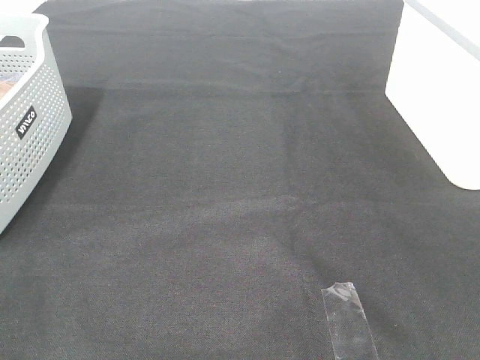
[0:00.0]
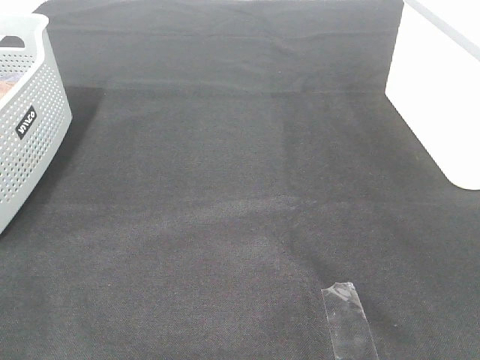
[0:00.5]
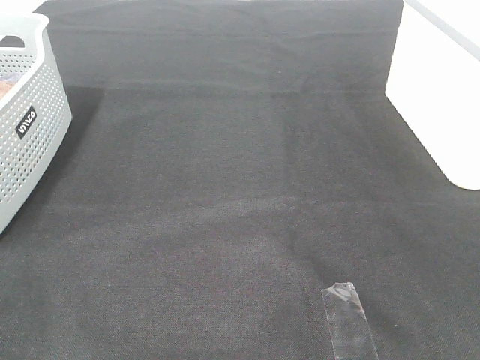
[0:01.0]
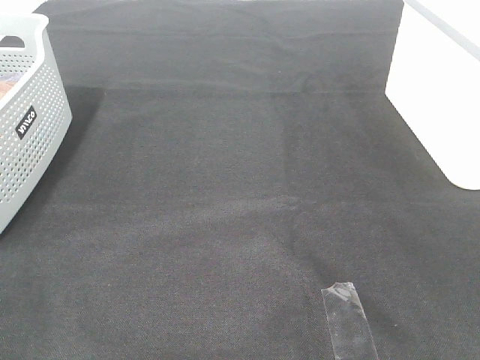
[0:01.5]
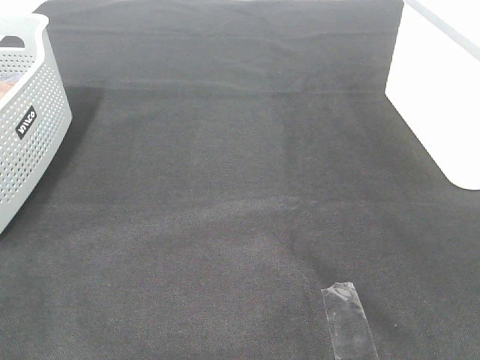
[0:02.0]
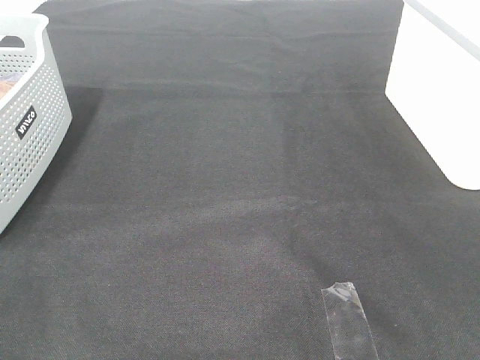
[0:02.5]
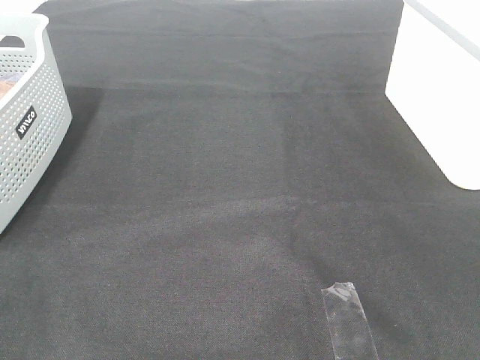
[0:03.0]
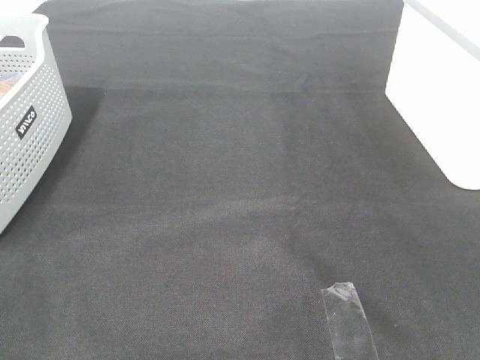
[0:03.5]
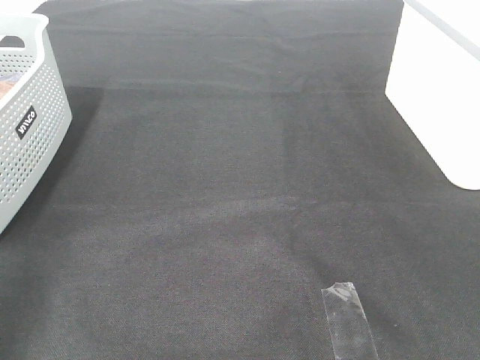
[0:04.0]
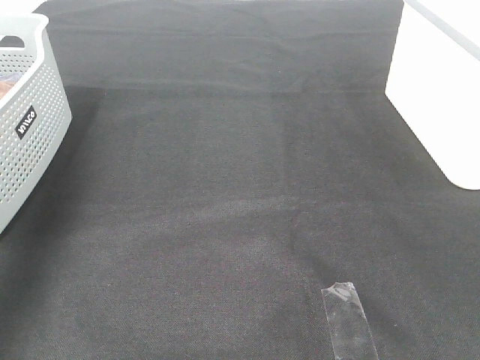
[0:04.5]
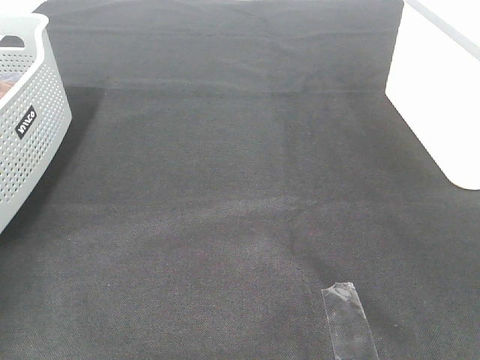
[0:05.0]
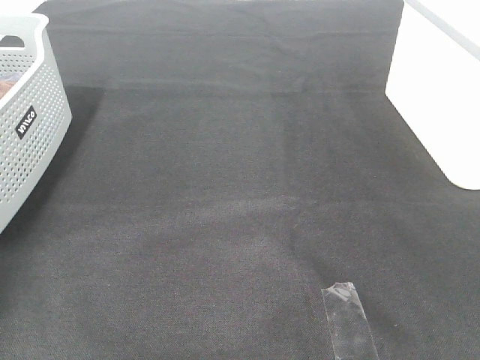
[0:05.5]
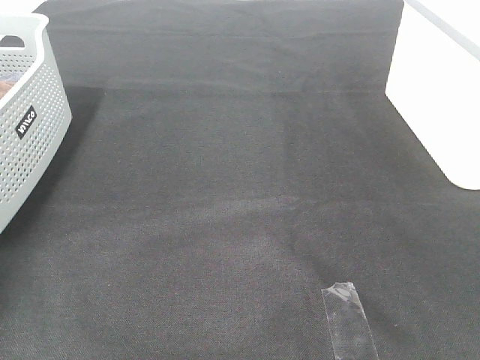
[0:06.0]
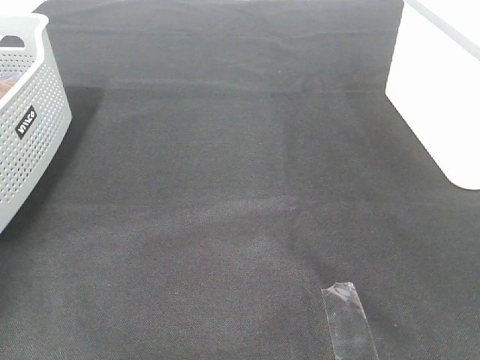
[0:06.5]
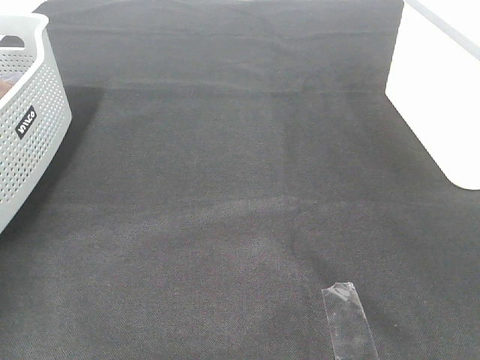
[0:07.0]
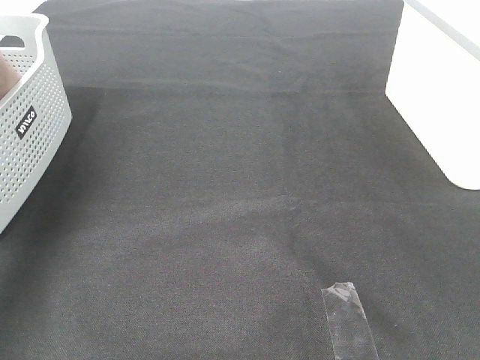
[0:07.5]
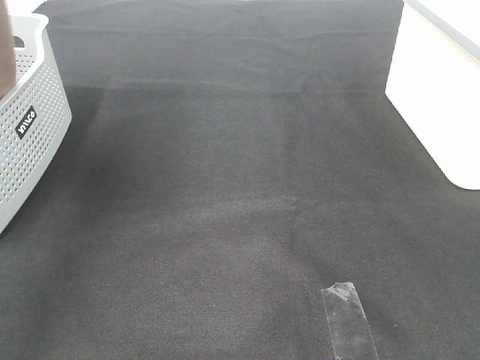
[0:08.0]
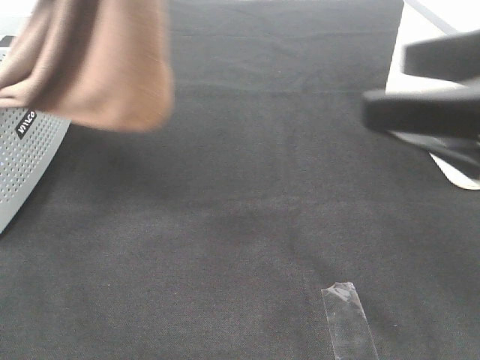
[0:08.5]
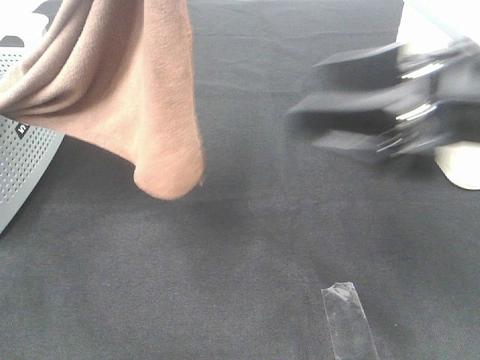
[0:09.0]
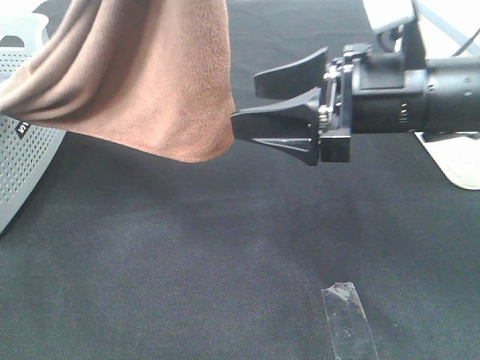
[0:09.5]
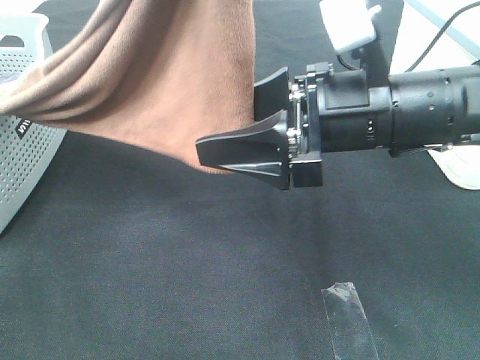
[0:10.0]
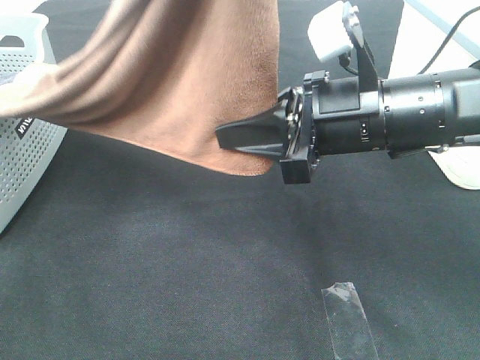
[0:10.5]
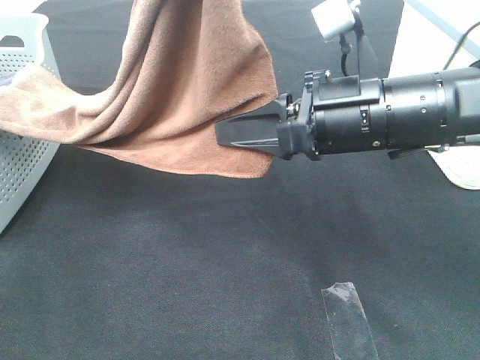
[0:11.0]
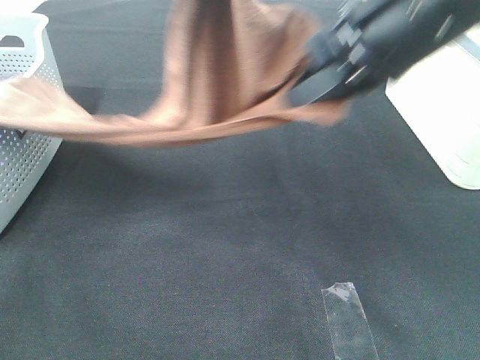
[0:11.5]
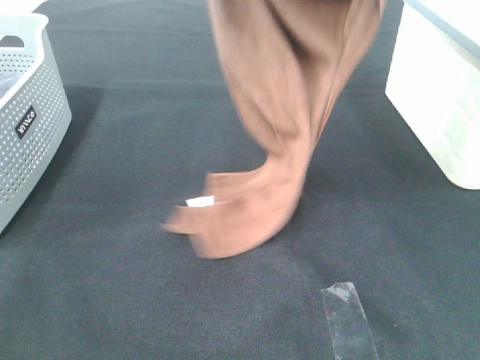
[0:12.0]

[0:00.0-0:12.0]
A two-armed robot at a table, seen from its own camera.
Task of the whole recording: Remove the towel and place it.
Step, 7.5 to 11.0 s: Right hand: grab a corner of the brown towel and straighten it.
0.0 to 2.0 s: Neither gripper changes place.
4.0 to 6.0 s: The left gripper shifts roughly 40 cm forward and downward, and closes up.
6.0 to 8.0 s: The left gripper is displaced upward and to the right by approximately 40 cm.
8.0 to 10.0 s: The right gripper moves forward, to the left and downward, about 25 cm. Meanwhile the left gripper travels to the right by some 15 cm.
10.0 to 12.0 s: The left gripper heads forward, covering some 10 cm. Meanwhile the right gripper goes about 25 cm upward, and closes up.

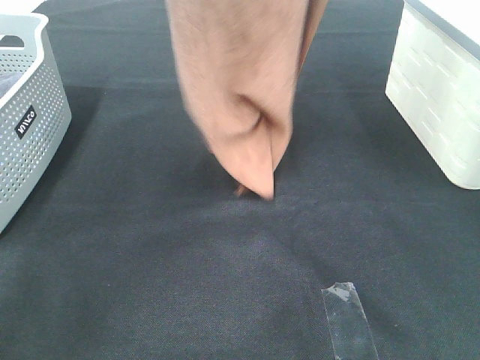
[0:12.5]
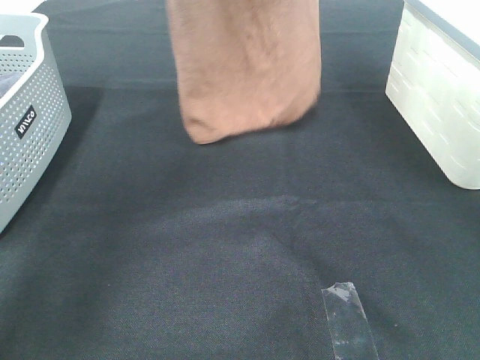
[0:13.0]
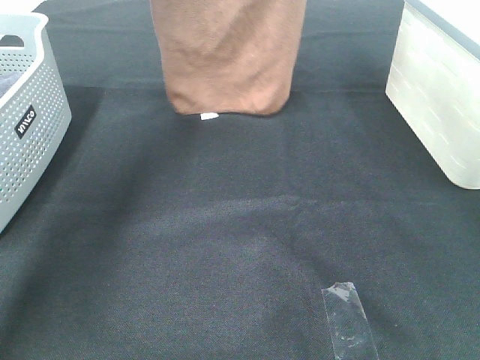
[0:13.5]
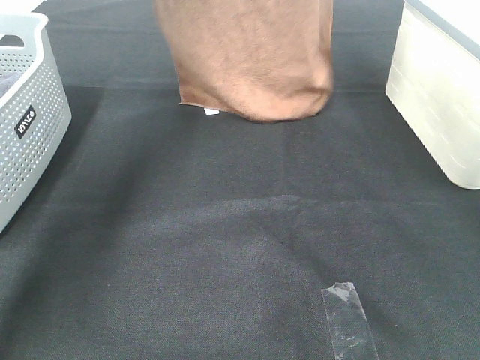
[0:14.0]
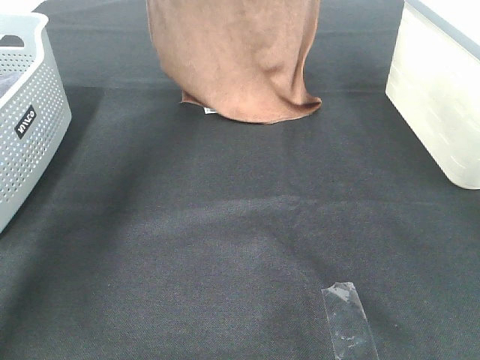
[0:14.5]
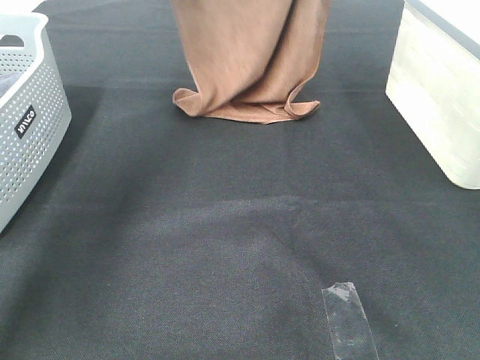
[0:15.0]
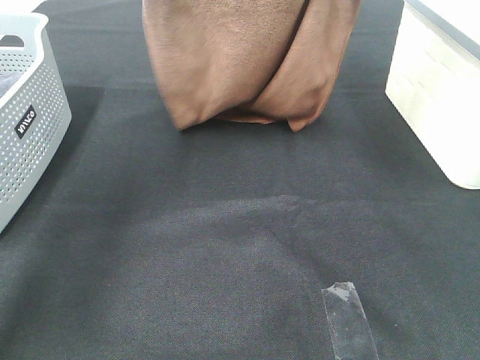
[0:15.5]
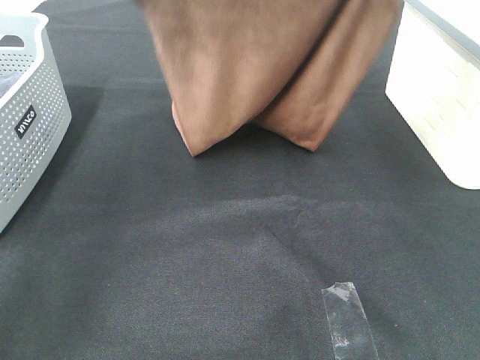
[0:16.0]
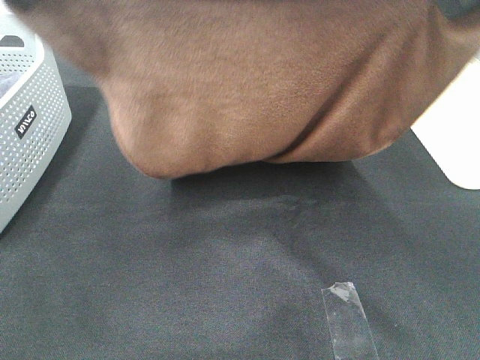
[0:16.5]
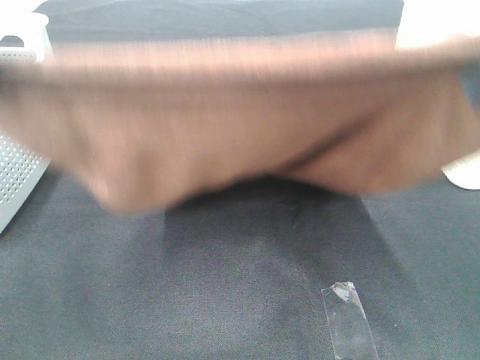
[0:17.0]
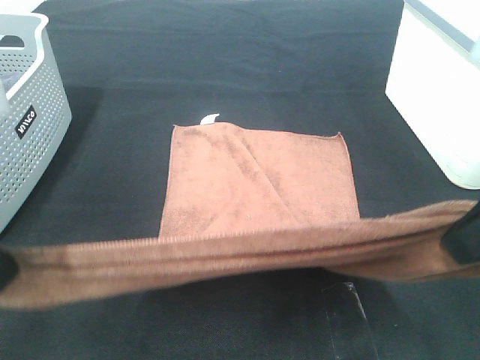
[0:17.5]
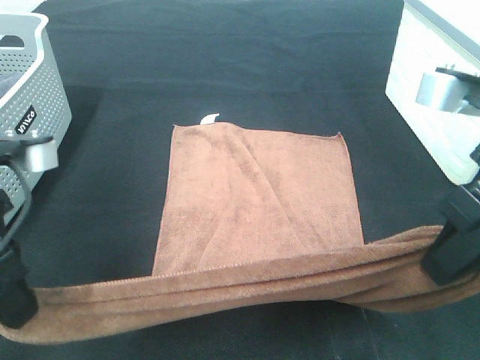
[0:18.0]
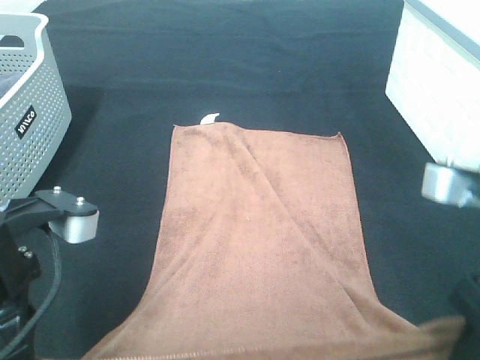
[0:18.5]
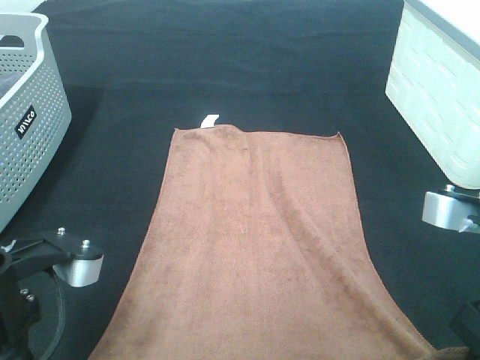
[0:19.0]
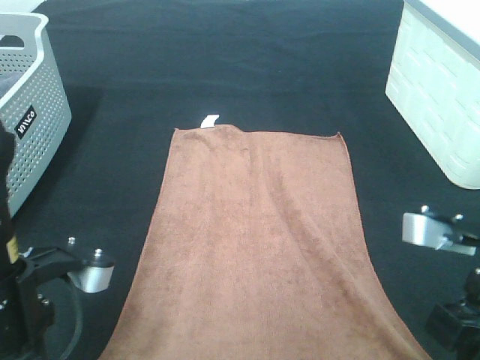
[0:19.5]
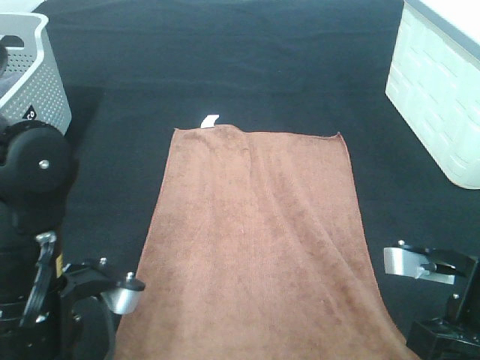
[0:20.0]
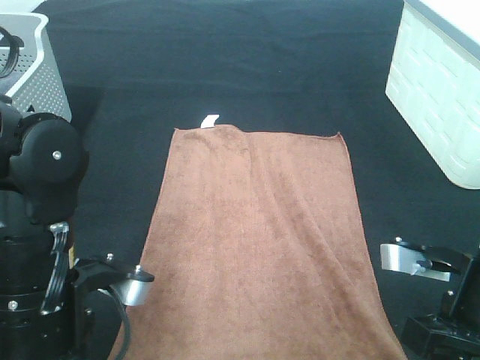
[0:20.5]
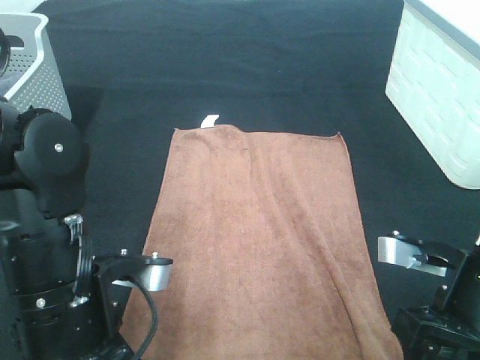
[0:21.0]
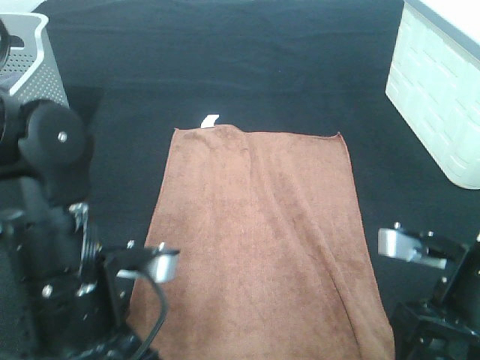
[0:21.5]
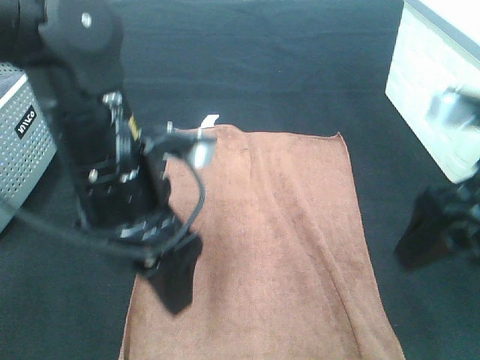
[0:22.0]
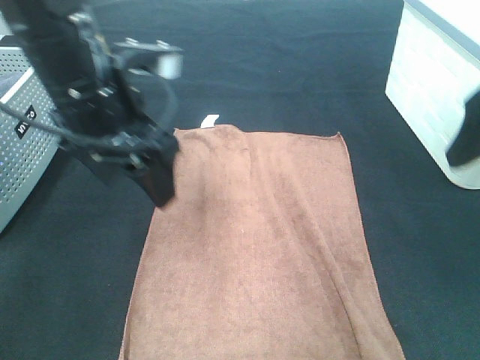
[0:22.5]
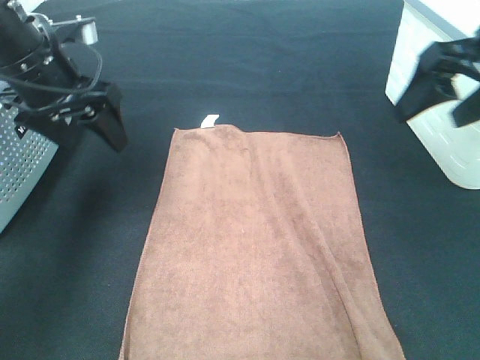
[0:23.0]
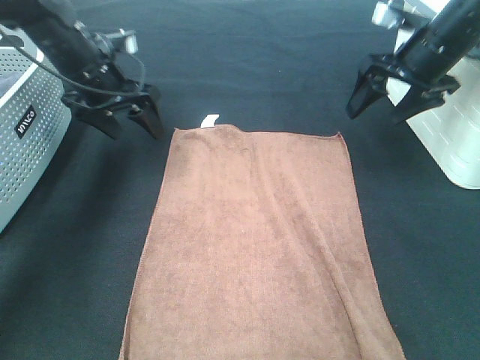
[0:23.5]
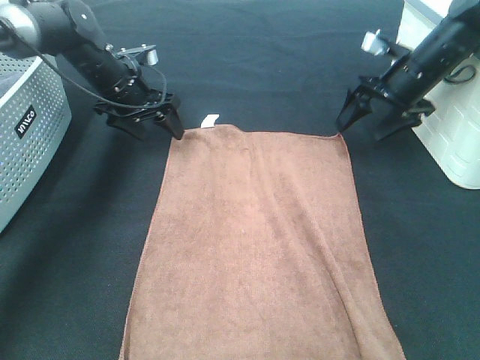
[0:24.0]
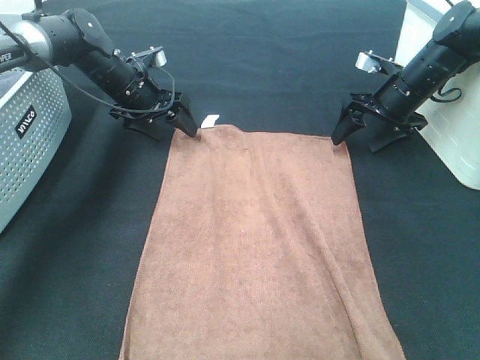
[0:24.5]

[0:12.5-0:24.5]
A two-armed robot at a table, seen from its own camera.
Task of the whole recording: Remove the towel and place it.
Step, 12.5 to 16.5 s: Left hand: spread the brown towel flat on the table.
Step, 12.5 to 16.5 s: Right hand: spread the brown towel flat on the table.
Step, 17.0 to 23.5 s: Left hand:adjust the brown towel.
Step, 17.0 to 23.5 s: Right hand:adjust the brown towel.
12.5 to 14.5 s: Both grippers travel together forward and downward, approximately 15 cm.
14.5 to 16.5 s: Both grippers move backward, roughly 30 cm.
16.5 to 18.5 s: Both grippers move downward, approximately 20 cm.
18.5 to 20.5 s: Both grippers move downward, about 5 cm.
20.5 to 22.5 s: The left gripper heads forward and upward, covering about 15 cm, and opens; the right gripper heads upward and forward, covering about 15 cm, and opens its fingers.
22.5 to 24.5 s: The two grippers go approximately 30 cm forward and downward.

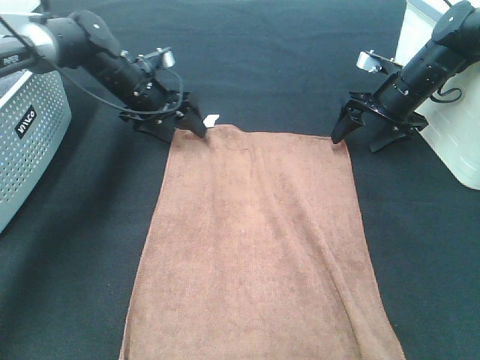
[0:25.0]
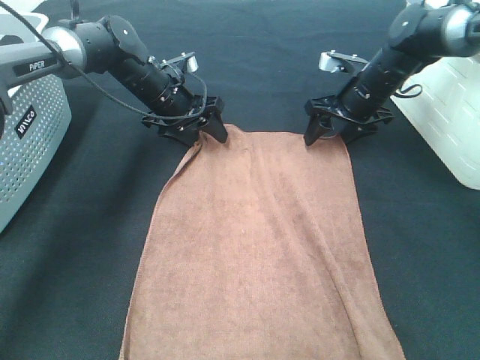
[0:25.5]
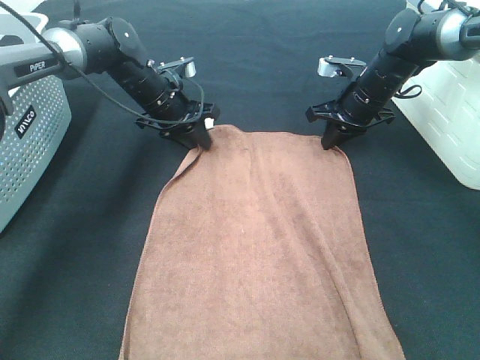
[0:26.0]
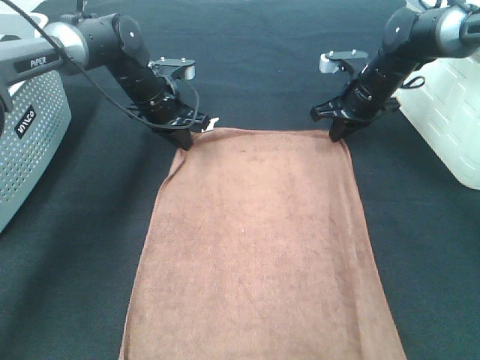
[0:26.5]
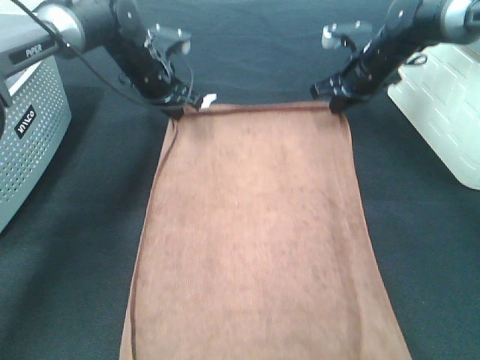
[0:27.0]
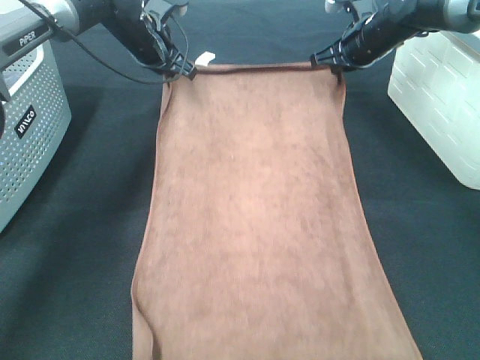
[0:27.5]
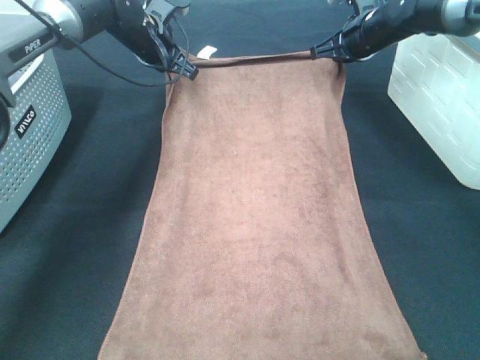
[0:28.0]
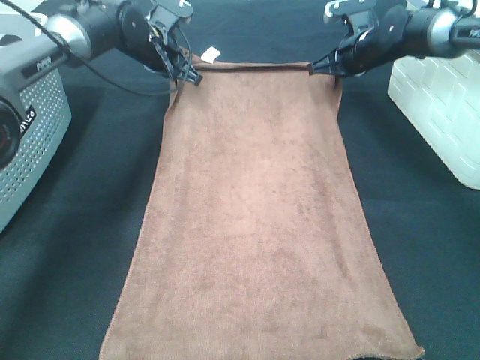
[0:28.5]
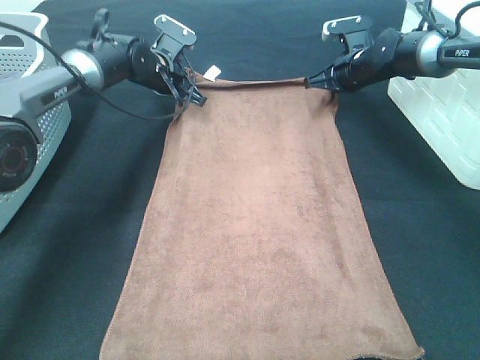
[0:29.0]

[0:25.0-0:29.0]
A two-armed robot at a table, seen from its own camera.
Task of the whole recording: Remove the towel and place it.
25.0 to 27.0 s: The left gripper closes its fingers. The right gripper ends up about 5 cm from where it was, and closes.
27.0 to 29.0 s: The left gripper ends up roughly 5 cm from where it was, while the right gripper moves some 5 cm.
